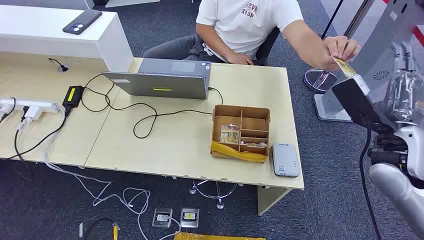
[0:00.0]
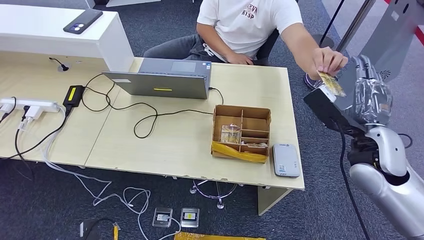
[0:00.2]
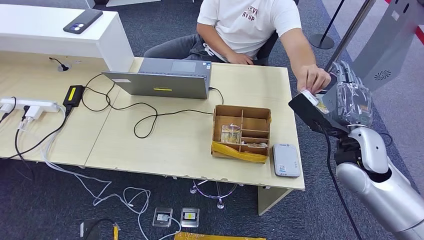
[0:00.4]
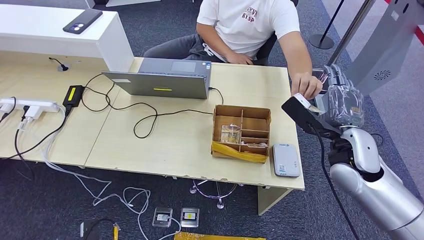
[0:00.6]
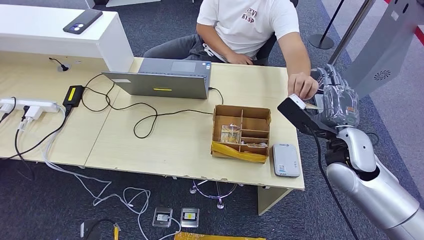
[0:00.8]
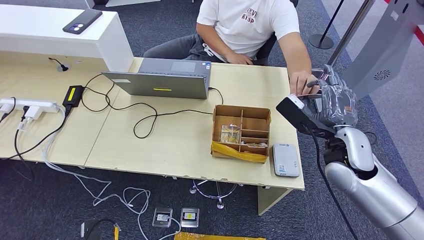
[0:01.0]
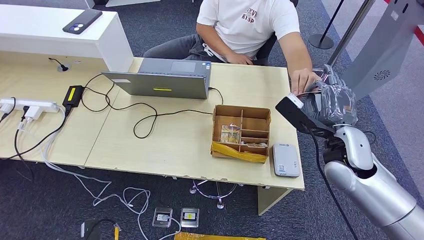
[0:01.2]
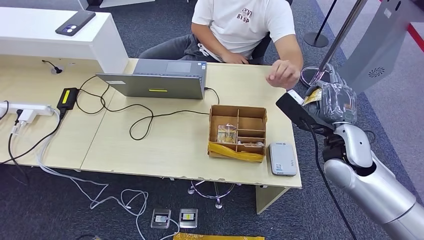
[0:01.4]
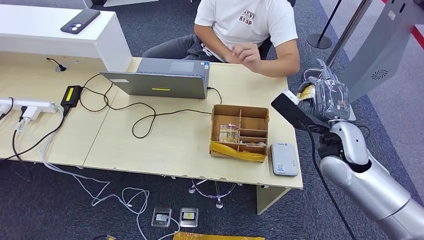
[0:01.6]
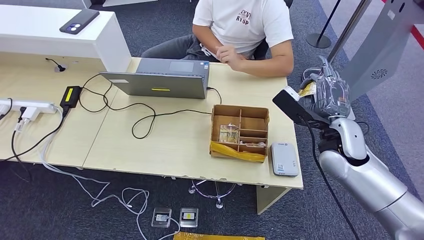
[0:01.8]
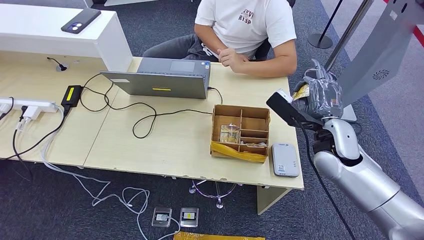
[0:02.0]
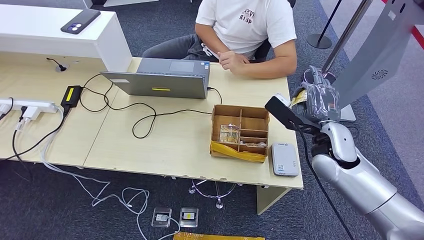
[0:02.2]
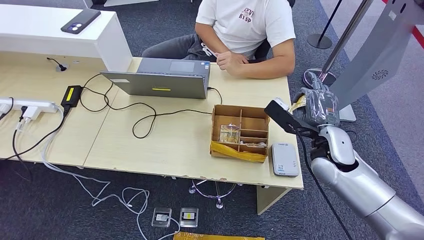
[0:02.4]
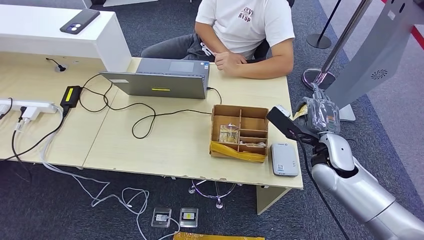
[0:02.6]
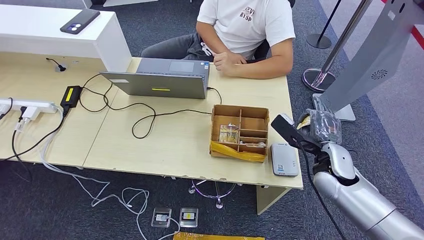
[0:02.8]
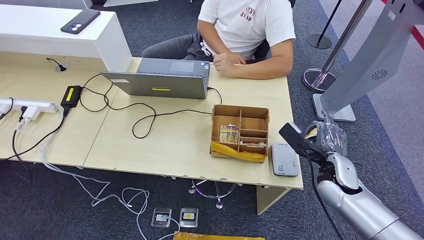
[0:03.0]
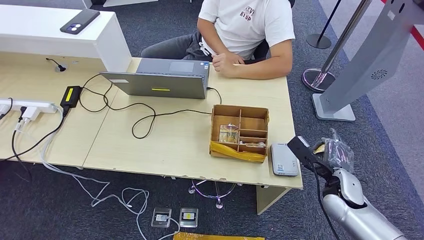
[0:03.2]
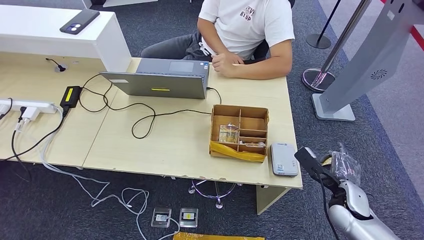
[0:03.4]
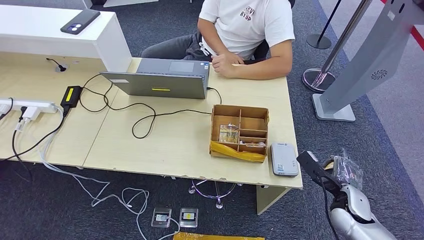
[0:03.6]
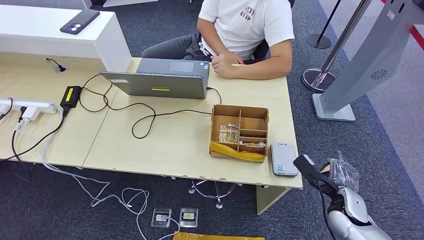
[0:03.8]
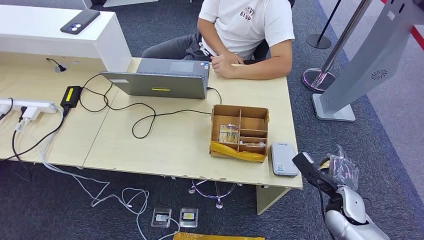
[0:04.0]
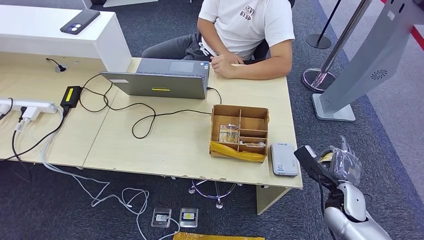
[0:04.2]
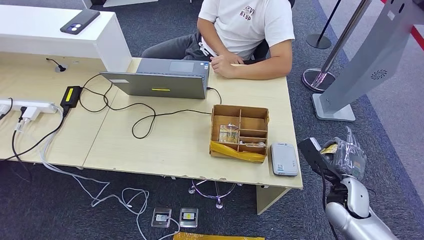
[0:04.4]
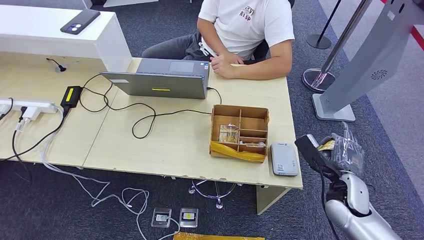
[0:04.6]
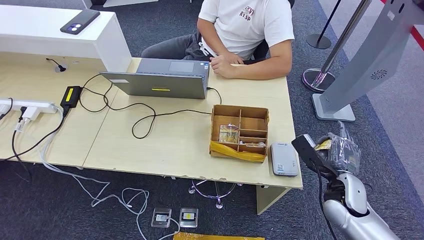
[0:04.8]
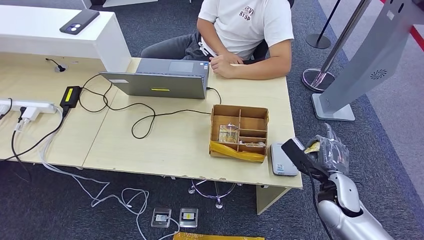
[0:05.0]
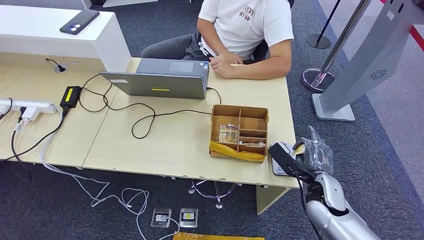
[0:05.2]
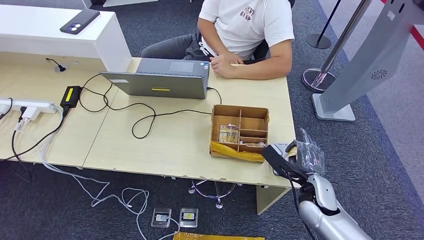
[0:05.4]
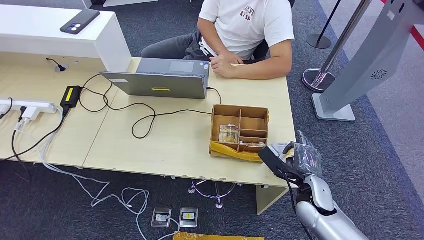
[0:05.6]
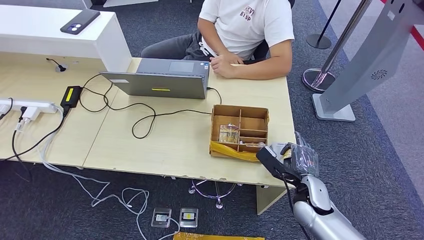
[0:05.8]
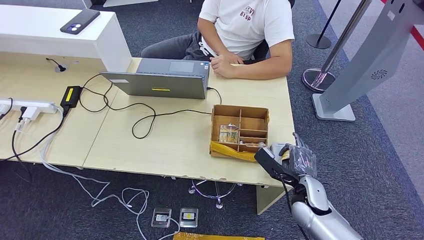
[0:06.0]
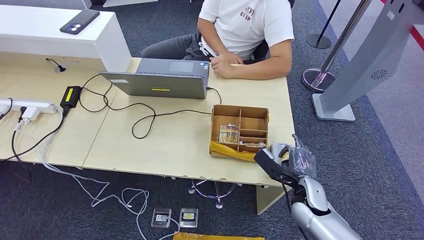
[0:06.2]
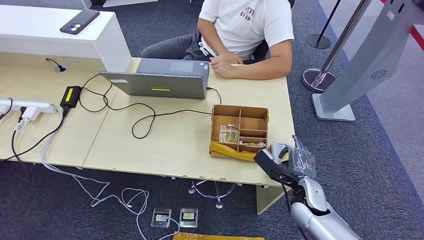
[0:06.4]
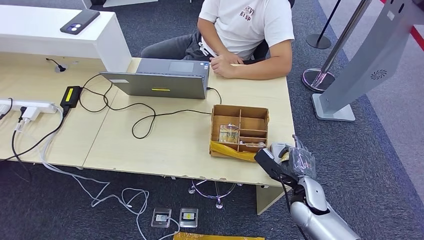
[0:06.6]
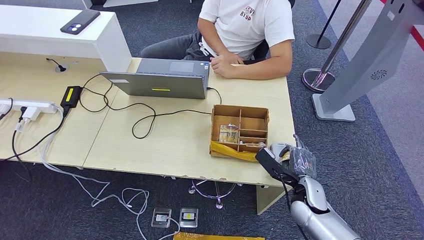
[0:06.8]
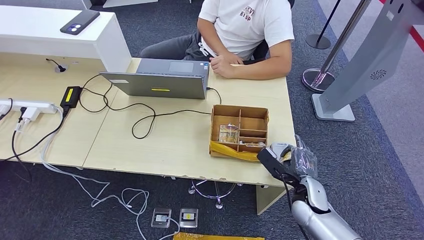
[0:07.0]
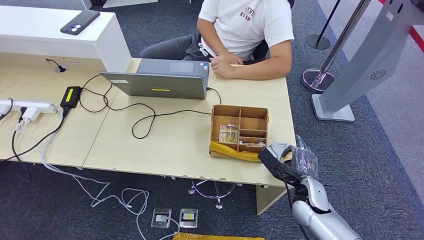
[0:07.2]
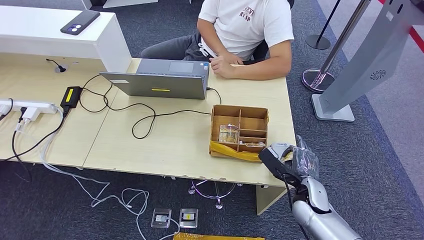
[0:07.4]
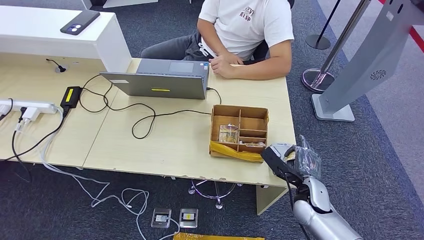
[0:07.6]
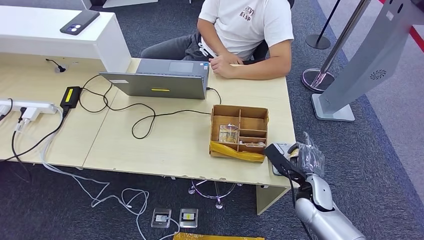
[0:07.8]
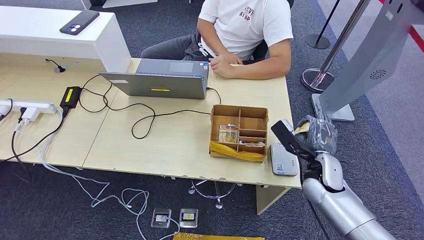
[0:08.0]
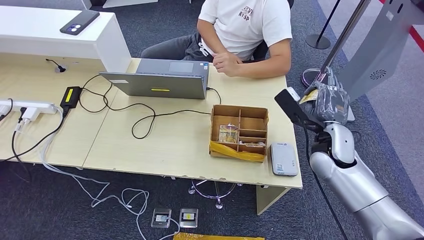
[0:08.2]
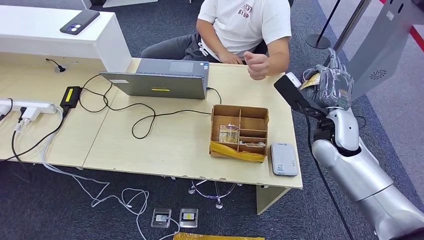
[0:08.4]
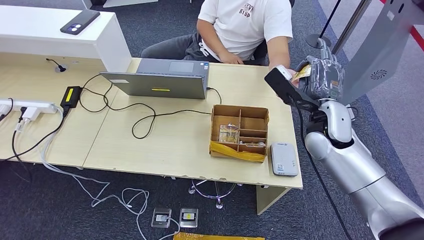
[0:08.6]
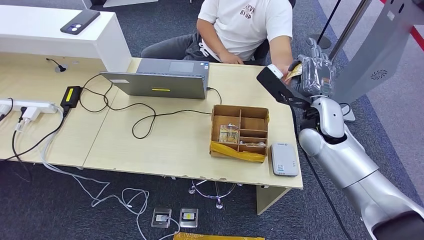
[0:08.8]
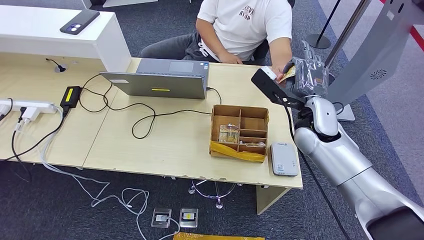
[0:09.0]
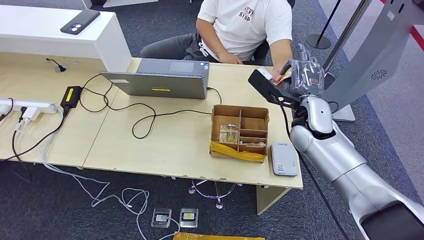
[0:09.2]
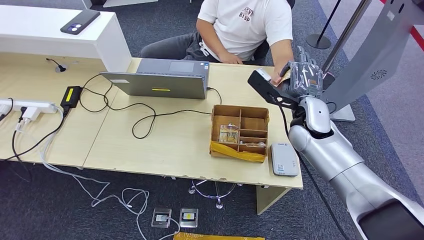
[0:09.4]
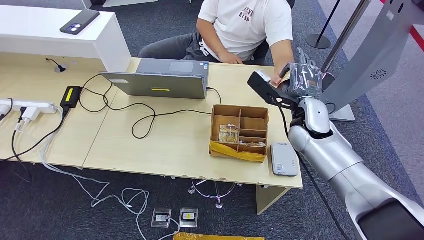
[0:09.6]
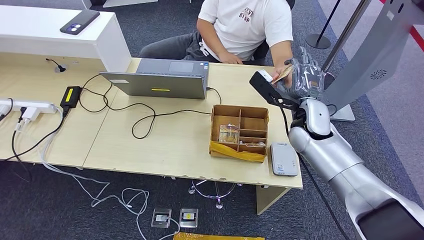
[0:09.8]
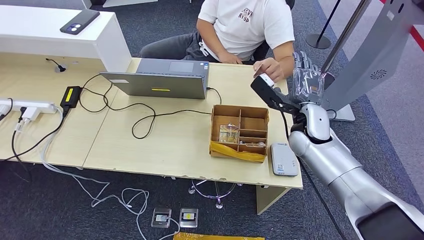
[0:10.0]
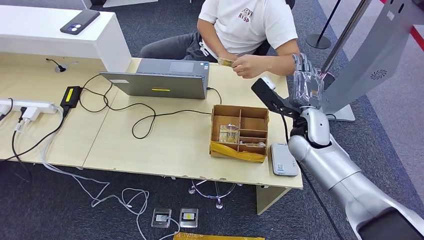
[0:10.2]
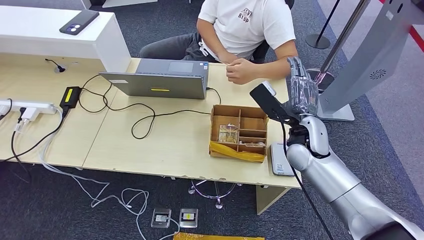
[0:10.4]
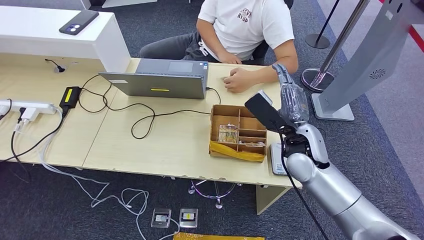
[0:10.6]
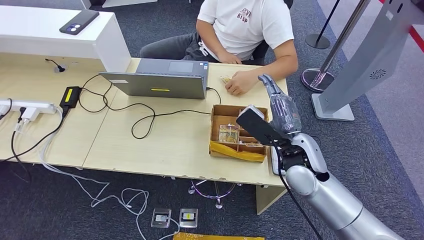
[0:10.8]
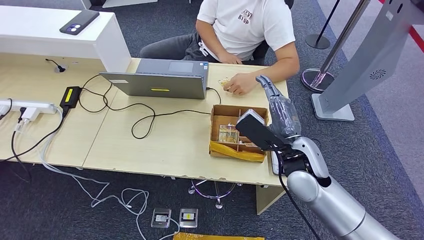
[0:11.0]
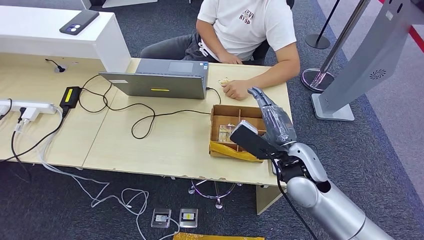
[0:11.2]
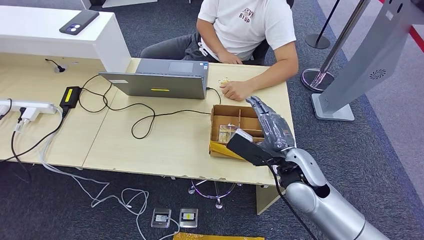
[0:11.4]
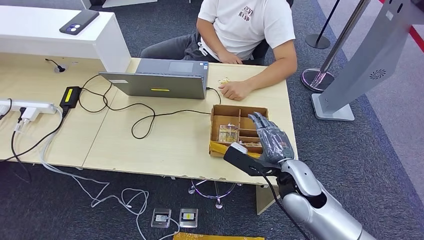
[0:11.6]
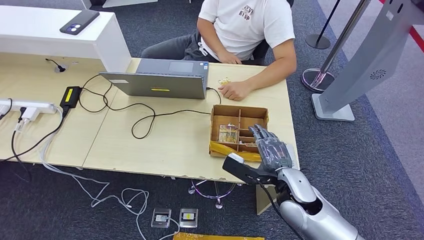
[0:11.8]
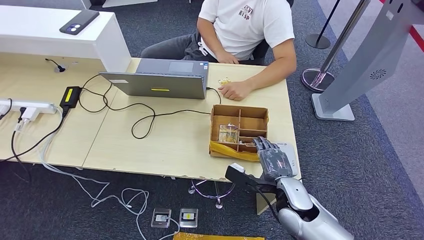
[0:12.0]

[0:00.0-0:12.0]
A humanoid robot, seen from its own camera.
Step, 0:00.0 to 0:01.6: Take the ID card from the person's hand.
Step, 0:01.8 to 0:07.8: Place the ID card on the card reader.
Step, 0:08.0 to 0:10.8: Hand the ID card to the person.
0:01.6 to 0:03.0: The right hand is displaced downward by about 10 cm, while the left hand heads to the right, covering approximately 5 cm.
0:04.4 to 0:06.0: The right hand heads to the left, covering roughly 10 cm.
0:06.0 to 0:07.6: There are only small adjustments of the hands.
0:07.6 to 0:09.0: The right hand moves upward and forward, about 25 cm.
0:09.0 to 0:10.4: The hands move only a little.
0:10.4 to 0:12.0: The right hand goes roughly 15 cm downward and backward.

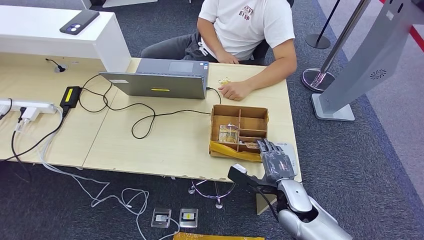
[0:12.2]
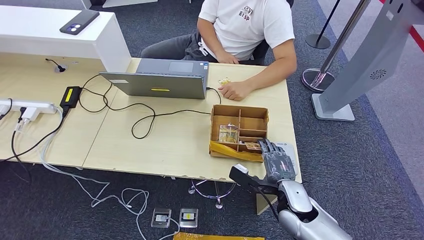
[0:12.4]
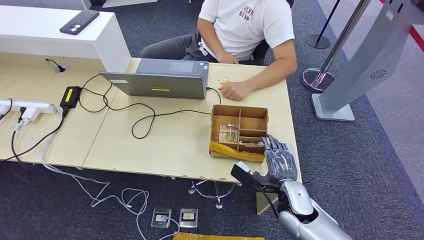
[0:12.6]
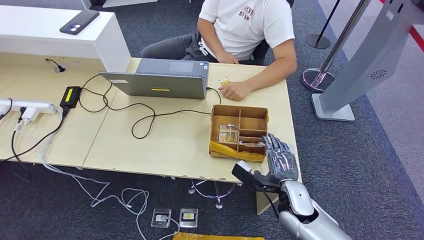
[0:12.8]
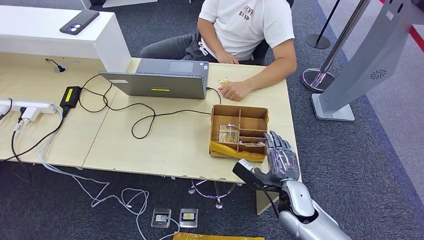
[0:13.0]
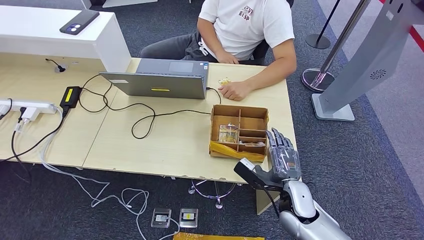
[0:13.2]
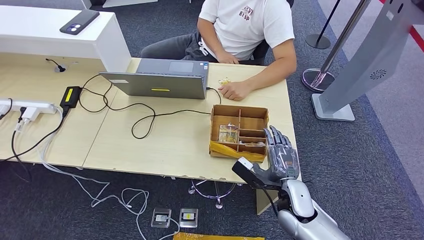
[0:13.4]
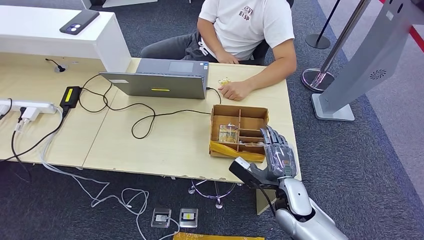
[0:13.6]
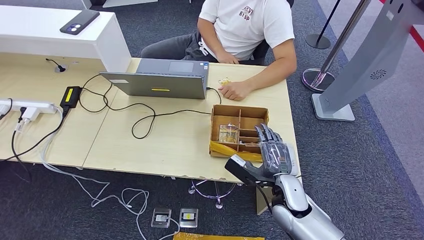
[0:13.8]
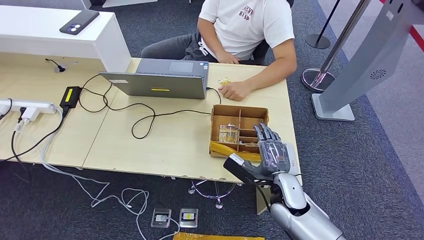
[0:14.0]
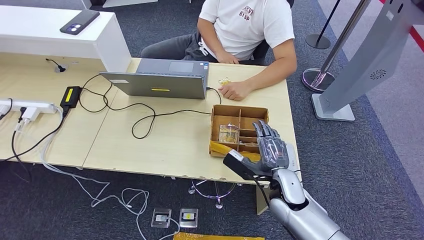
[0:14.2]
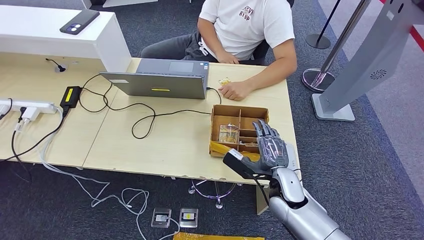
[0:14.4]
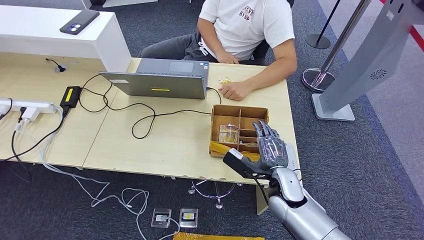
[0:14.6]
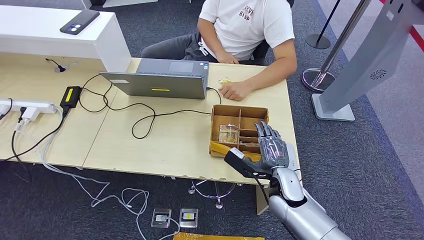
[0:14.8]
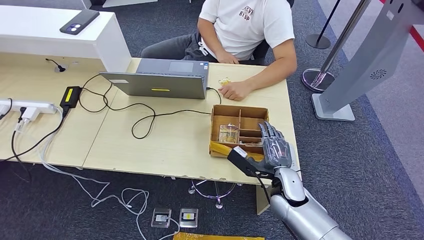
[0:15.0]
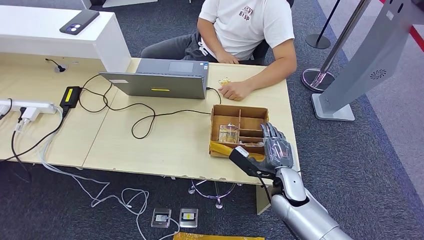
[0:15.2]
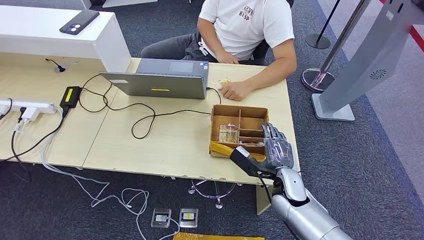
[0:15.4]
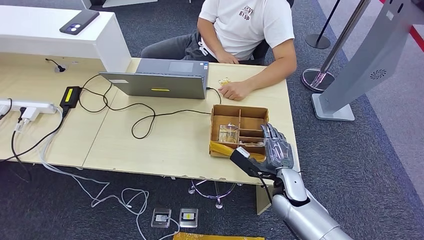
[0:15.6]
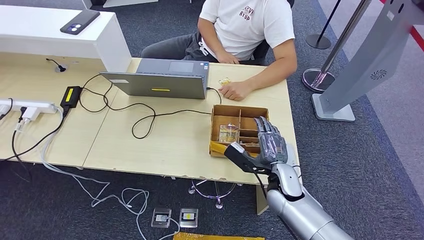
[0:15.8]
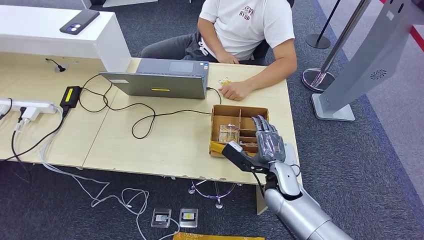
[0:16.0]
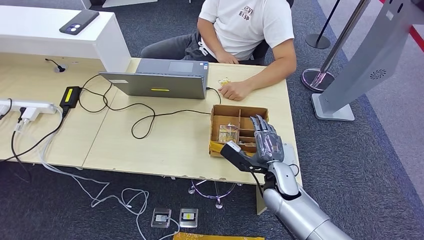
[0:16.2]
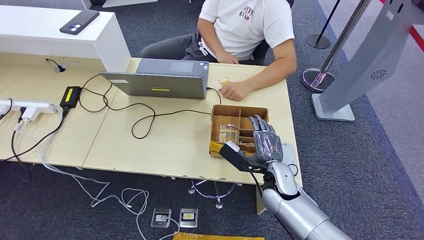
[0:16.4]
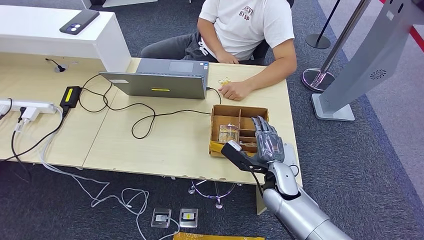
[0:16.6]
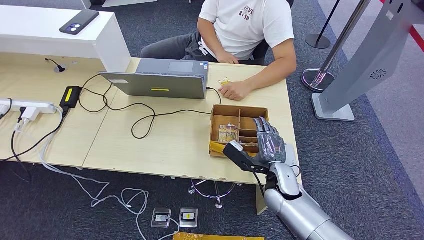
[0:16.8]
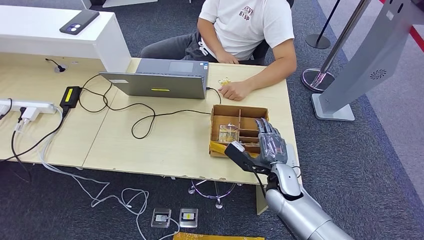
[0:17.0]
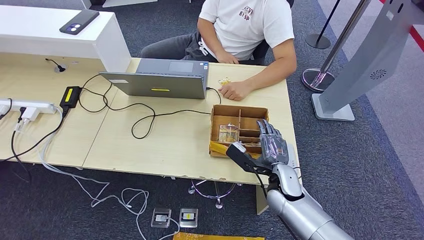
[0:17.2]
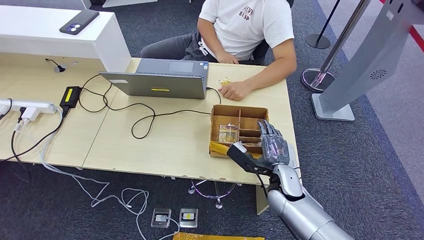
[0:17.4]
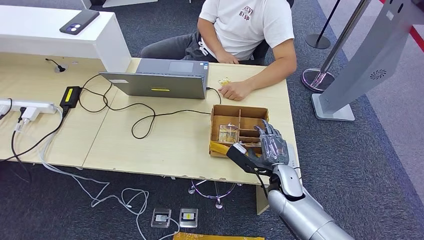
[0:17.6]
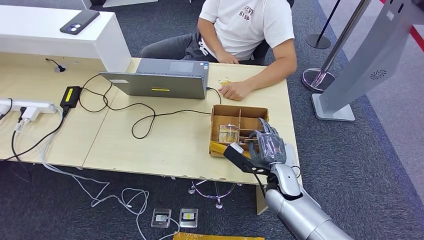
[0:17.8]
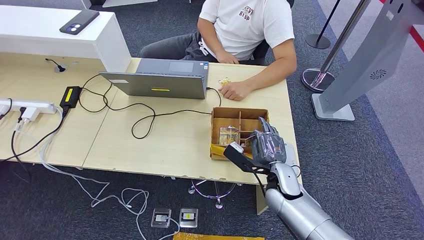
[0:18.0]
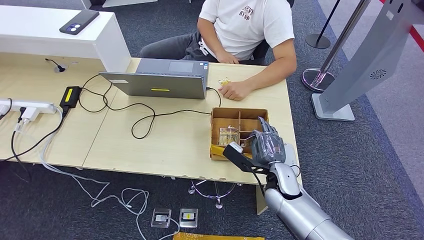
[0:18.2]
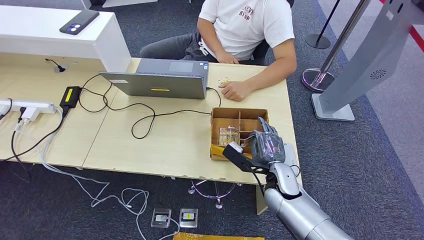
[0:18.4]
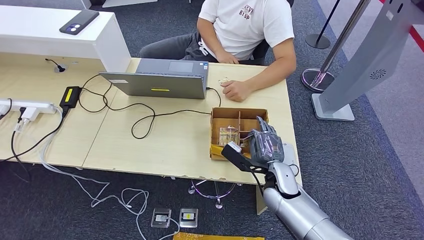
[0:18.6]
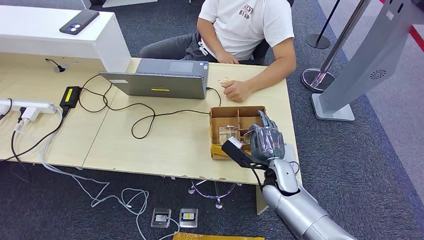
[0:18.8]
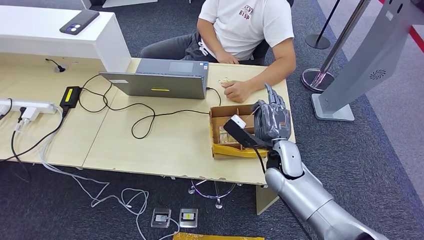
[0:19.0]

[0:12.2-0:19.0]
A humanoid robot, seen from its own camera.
Step, 0:17.2 to 0:19.0: Pick up the room key from the key card box.
0:12.2 to 0:17.6: The hands make only small movements.
0:17.6 to 0:19.0: The right hand moves upward, roughly 5 cm.
